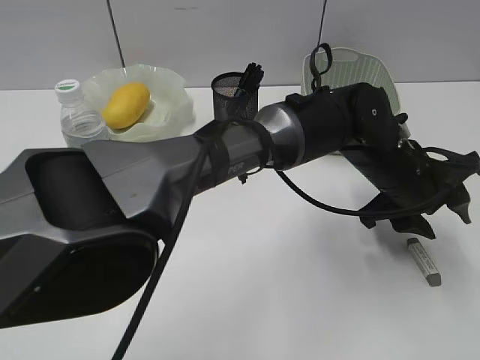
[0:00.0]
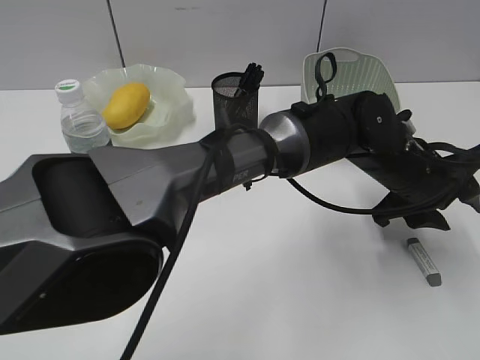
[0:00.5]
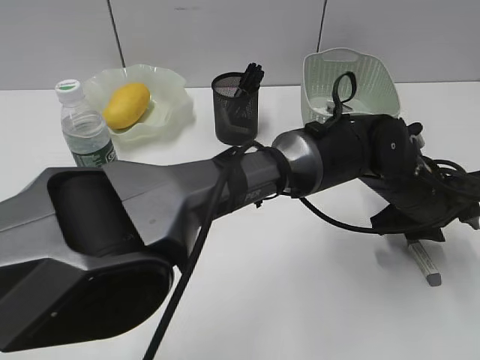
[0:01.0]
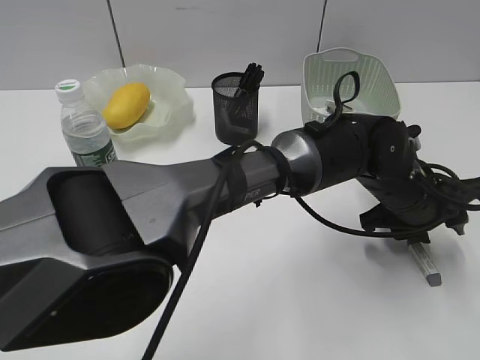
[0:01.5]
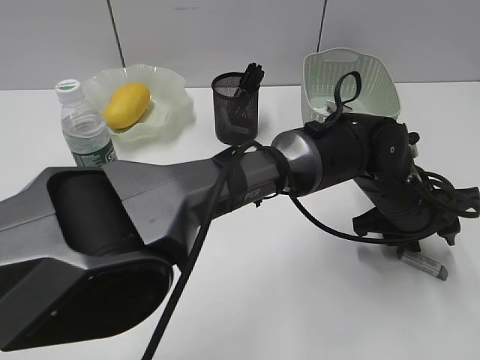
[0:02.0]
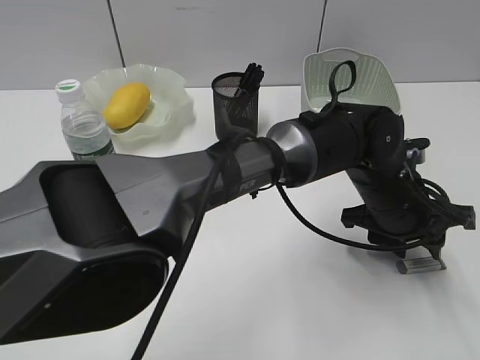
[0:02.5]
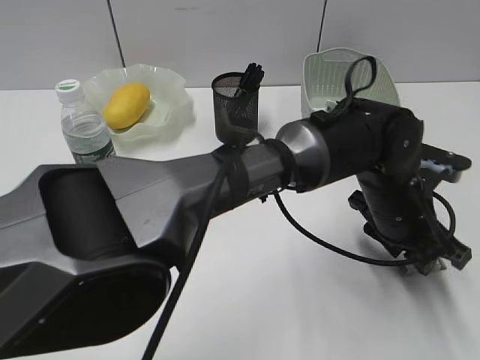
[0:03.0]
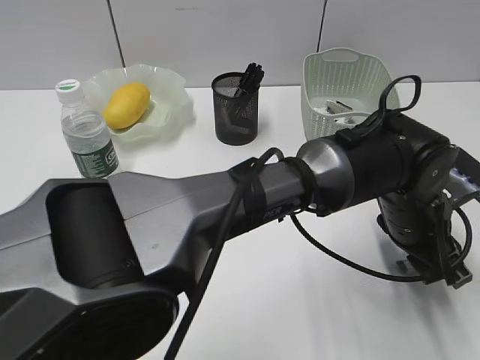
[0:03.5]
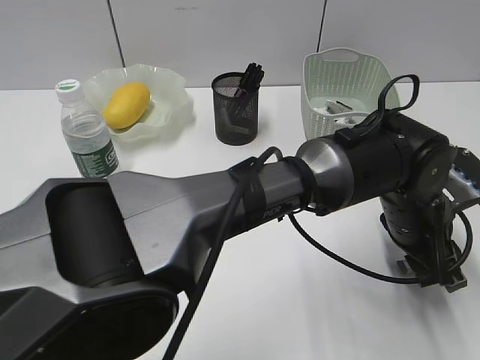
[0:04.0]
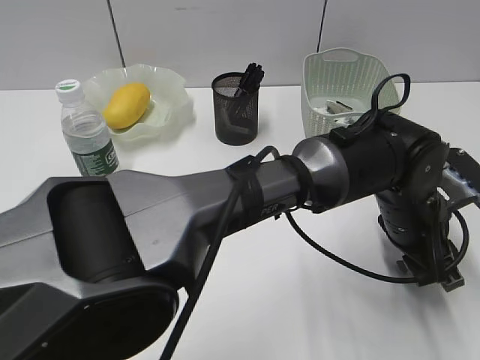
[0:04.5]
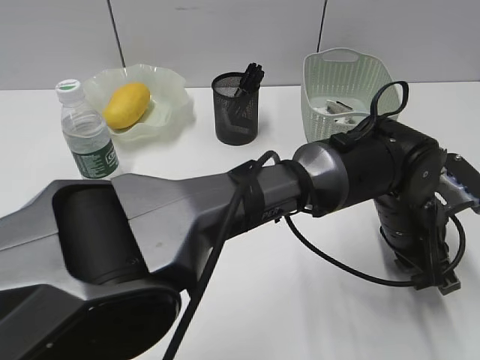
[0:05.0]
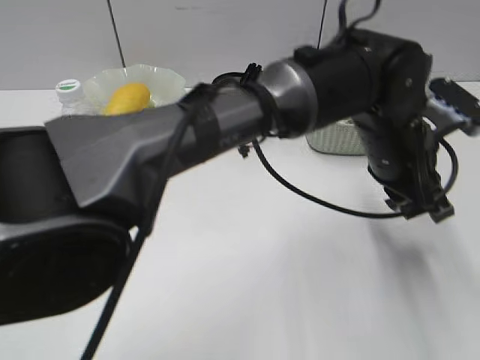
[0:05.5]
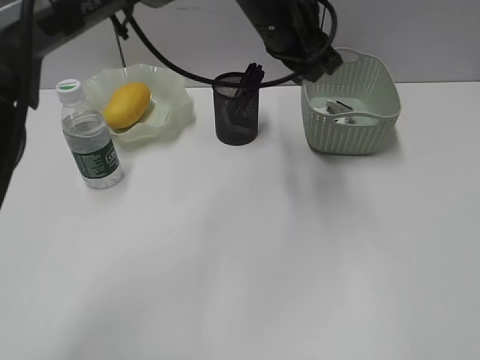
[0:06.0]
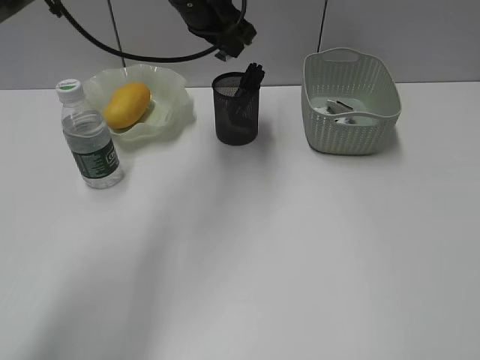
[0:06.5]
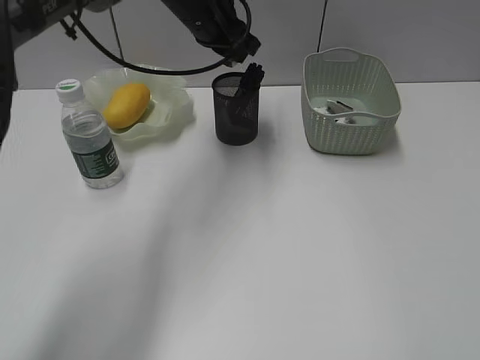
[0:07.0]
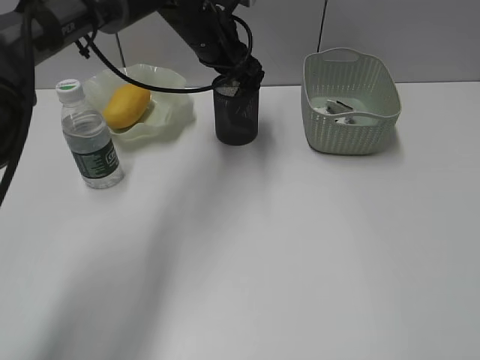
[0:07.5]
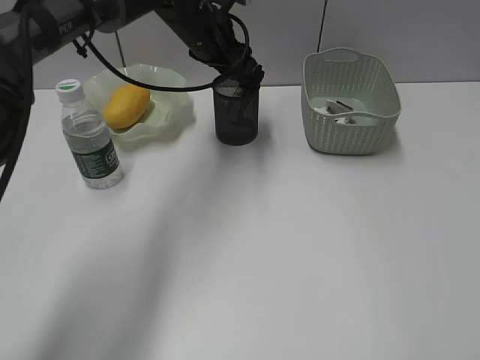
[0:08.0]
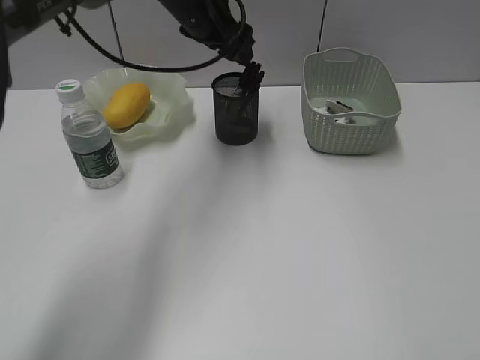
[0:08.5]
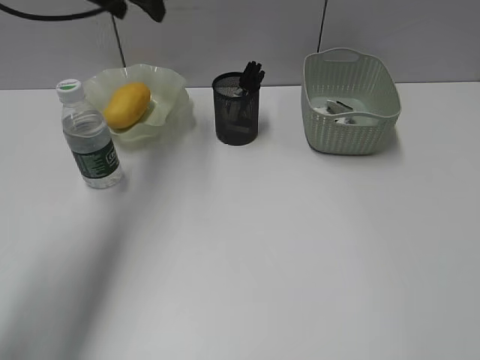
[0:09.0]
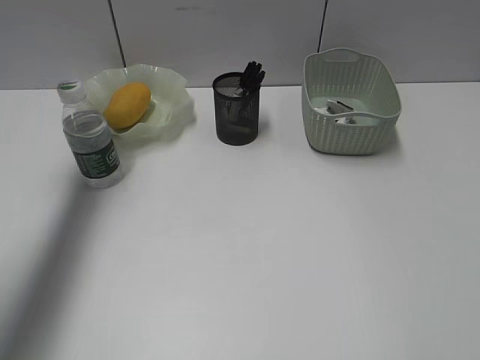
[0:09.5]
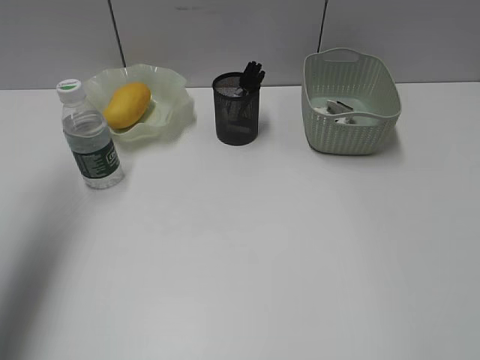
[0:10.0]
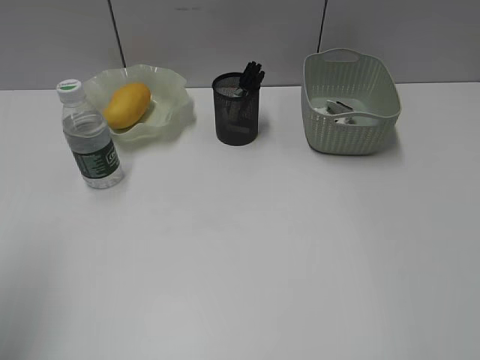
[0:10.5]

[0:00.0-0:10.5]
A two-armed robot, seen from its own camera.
Step, 0:00.0 to 0:05.0: Grasp the eraser with left gripper.
Step, 0:05.5 to 0:08.0: Place the eraser in pen holder with left gripper.
0:04.0 to 0:06.5: The left gripper is displaced to the left, forward and upward by approximately 35 cm, and closes.
0:06.5 to 0:08.5: The left gripper opens up.
0:08.5 to 0:10.5: The left gripper moves backward and to the left, about 40 cm.

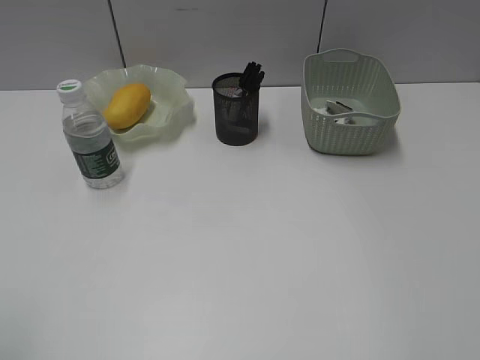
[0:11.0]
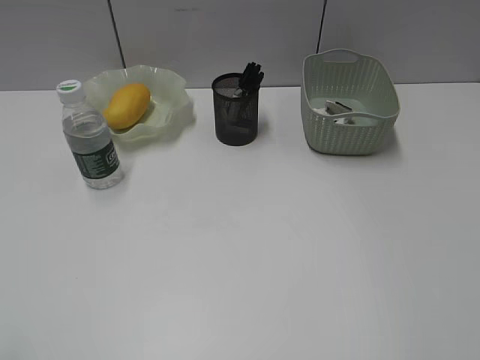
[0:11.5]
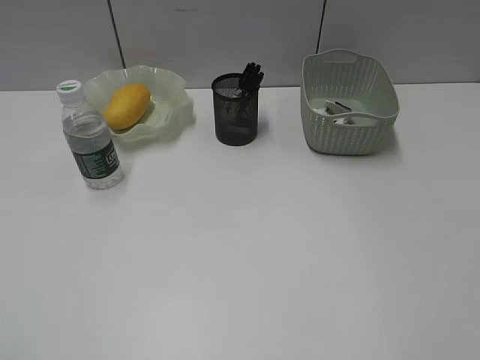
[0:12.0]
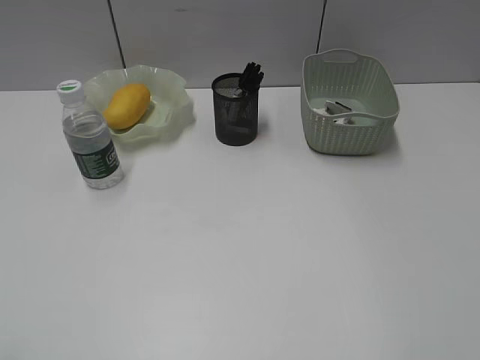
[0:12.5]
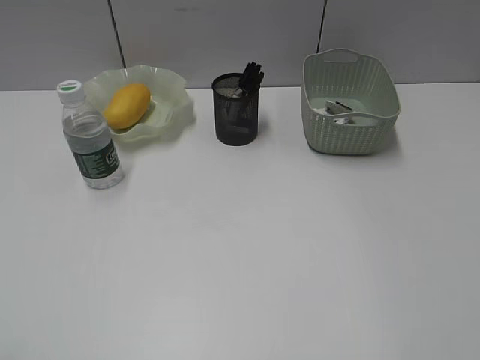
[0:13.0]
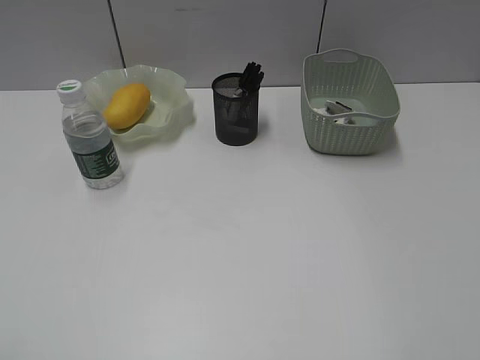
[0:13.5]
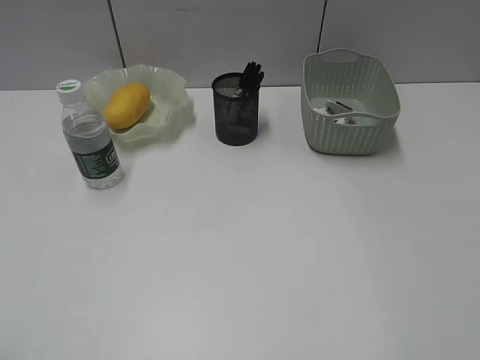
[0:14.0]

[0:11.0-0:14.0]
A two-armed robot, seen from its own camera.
0:12.5 to 0:14.0: Both grippers stay about where they are.

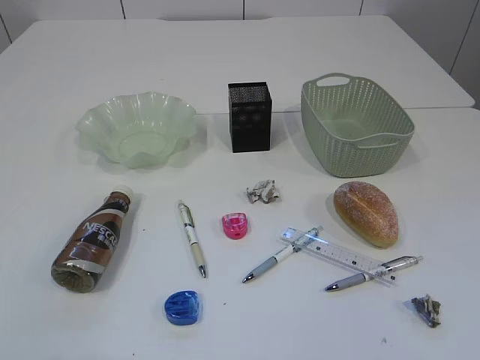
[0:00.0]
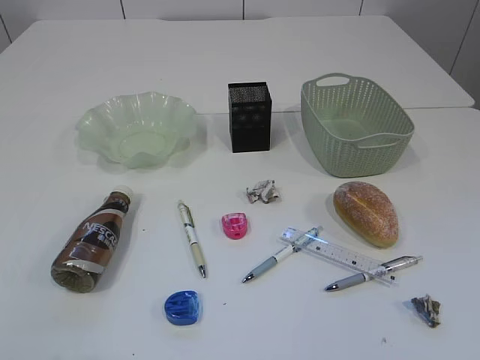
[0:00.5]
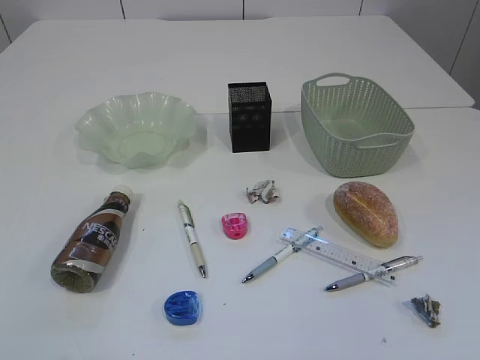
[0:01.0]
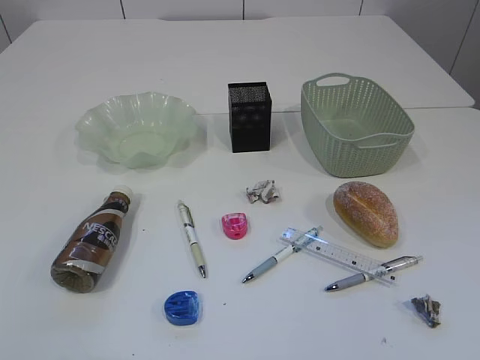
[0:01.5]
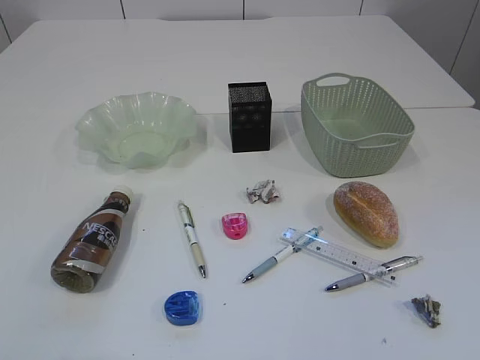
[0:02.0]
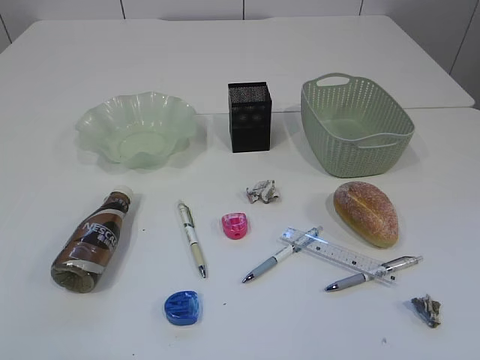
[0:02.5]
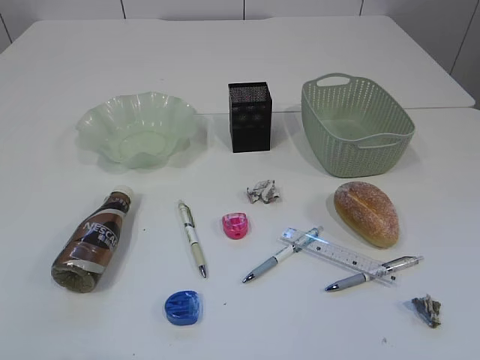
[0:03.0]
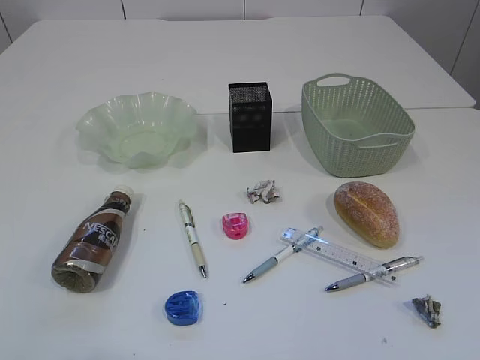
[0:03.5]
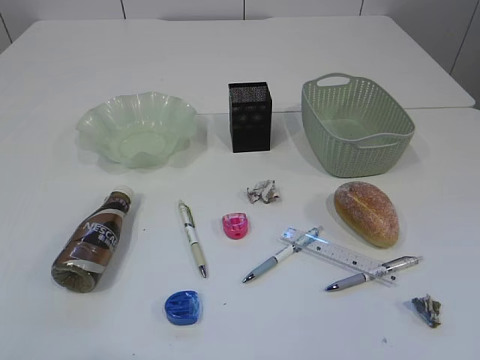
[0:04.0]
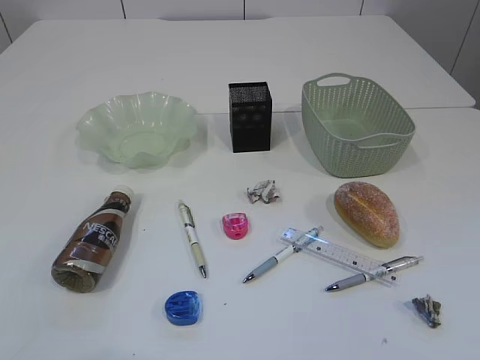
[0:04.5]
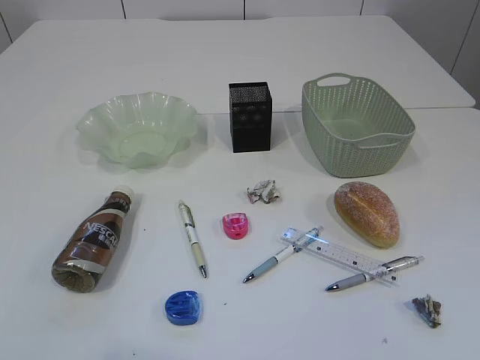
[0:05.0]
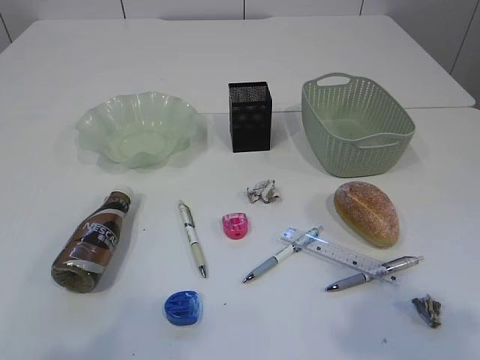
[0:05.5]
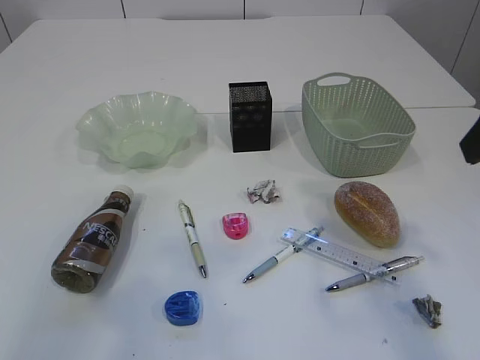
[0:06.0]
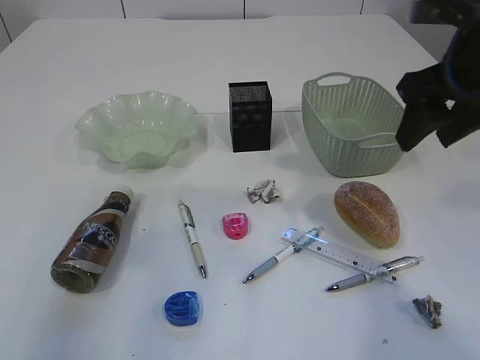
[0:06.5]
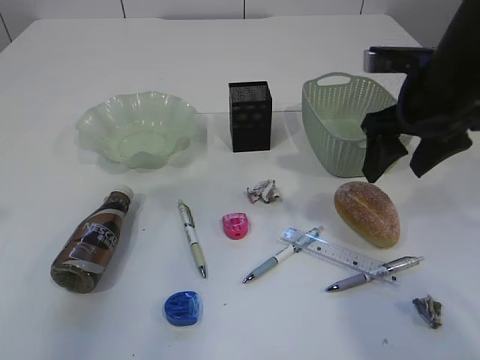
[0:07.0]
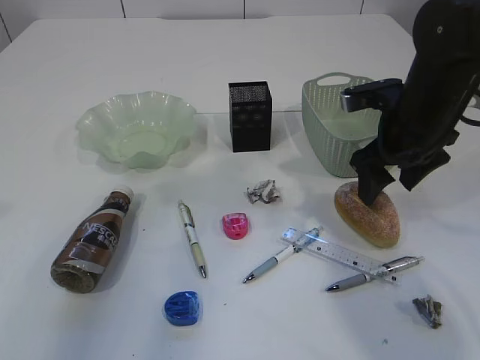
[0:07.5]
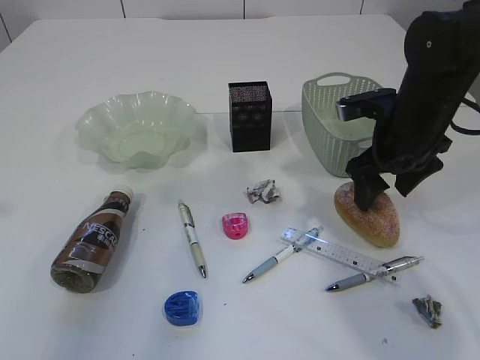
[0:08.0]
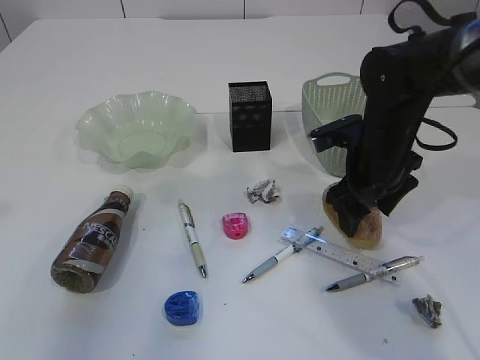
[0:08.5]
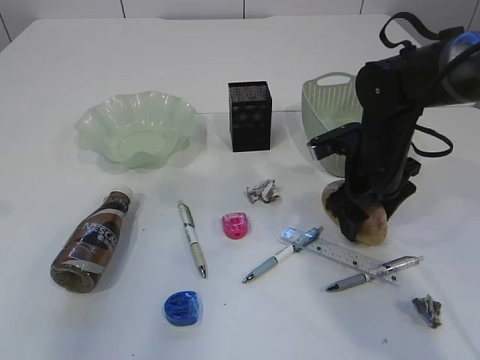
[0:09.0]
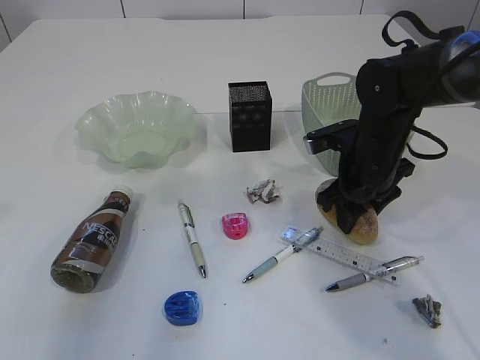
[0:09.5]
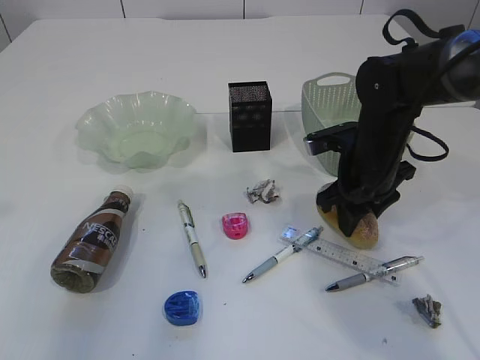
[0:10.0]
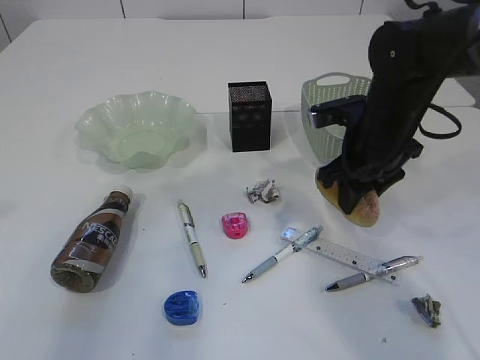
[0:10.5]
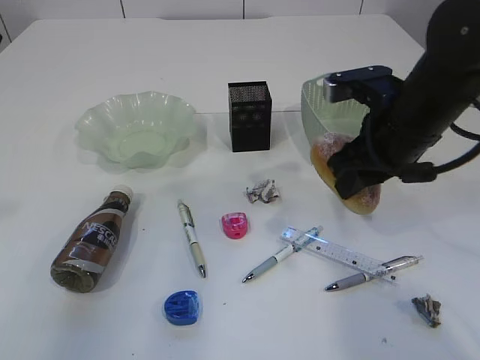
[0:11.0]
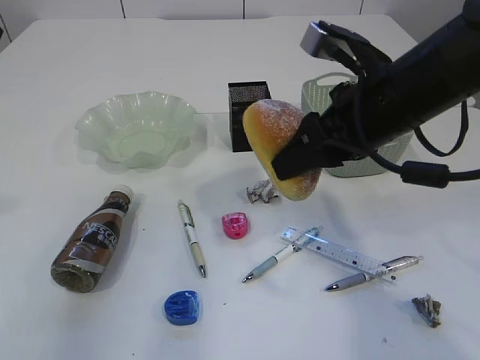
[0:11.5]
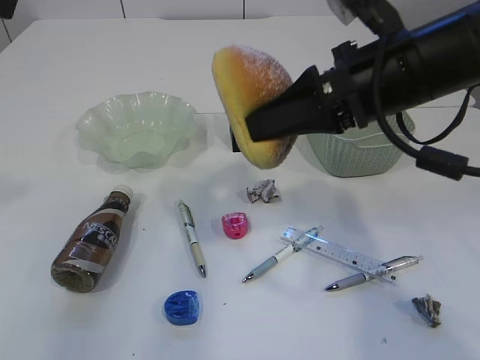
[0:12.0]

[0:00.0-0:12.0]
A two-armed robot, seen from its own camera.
0:02.0 to 0:04.0: Both grippers stay about where they are.
0:04.0 to 0:06.0: The left gripper is displaced forward and upward by about 10 cm; the right gripper heads forward, covering approximately 25 cm.
0:06.0 to 0:08.0: The right gripper goes roughly 25 cm forward and downward.
0:08.0 to 0:10.0: The right gripper changes place by roughly 5 cm, and closes.
0:10.0 to 0:12.0: The right gripper moves upward and backward, roughly 15 cm.
